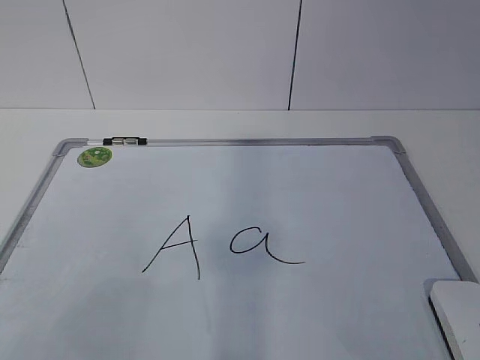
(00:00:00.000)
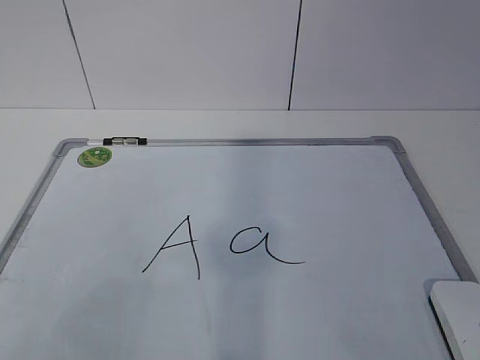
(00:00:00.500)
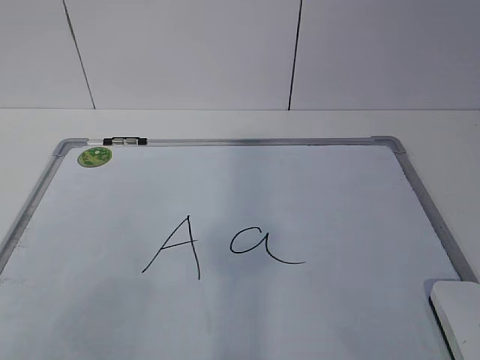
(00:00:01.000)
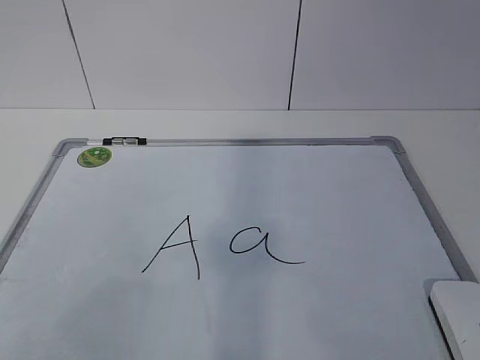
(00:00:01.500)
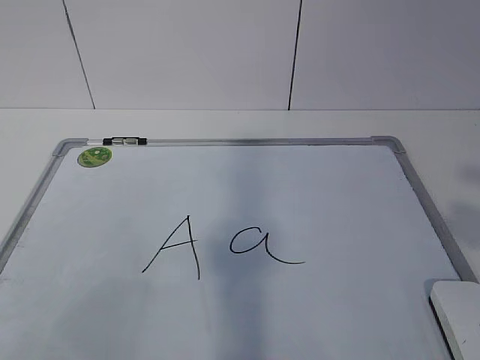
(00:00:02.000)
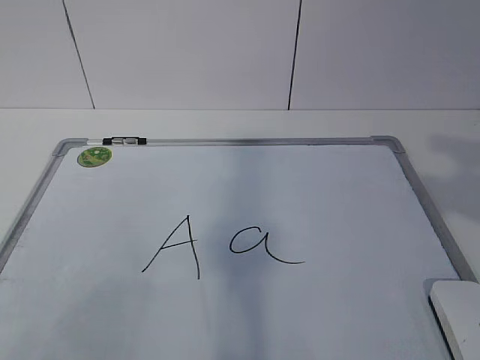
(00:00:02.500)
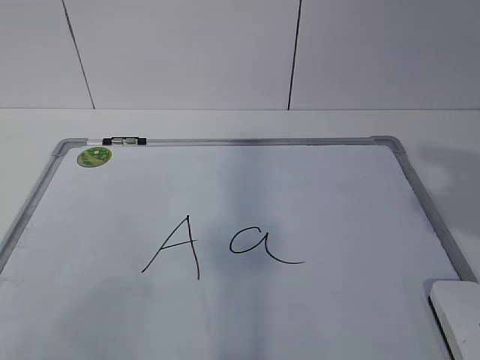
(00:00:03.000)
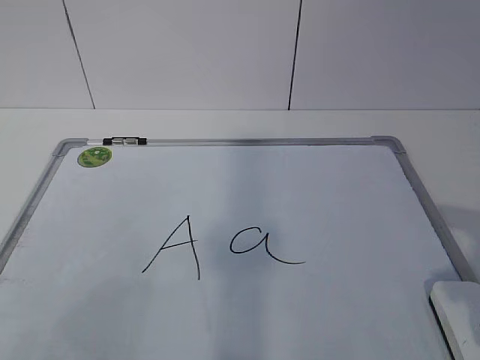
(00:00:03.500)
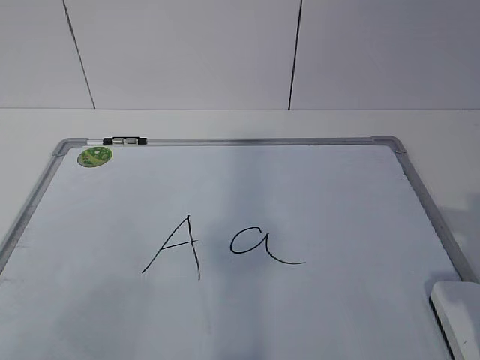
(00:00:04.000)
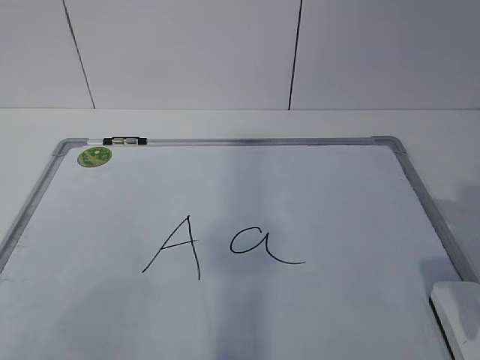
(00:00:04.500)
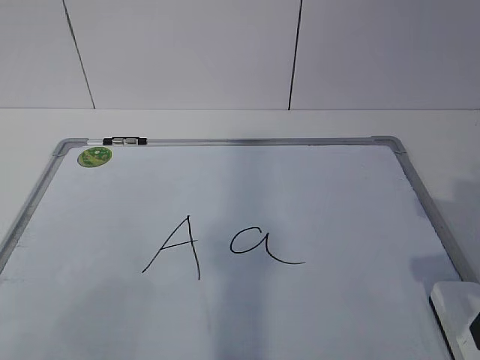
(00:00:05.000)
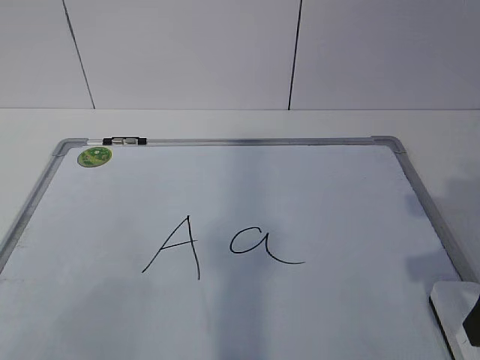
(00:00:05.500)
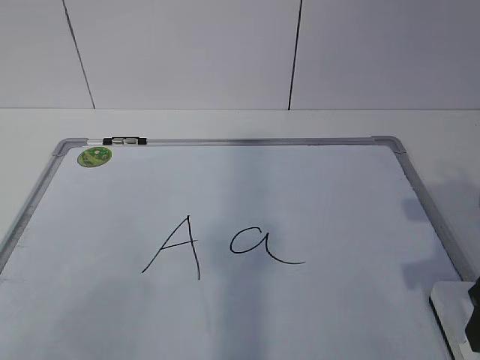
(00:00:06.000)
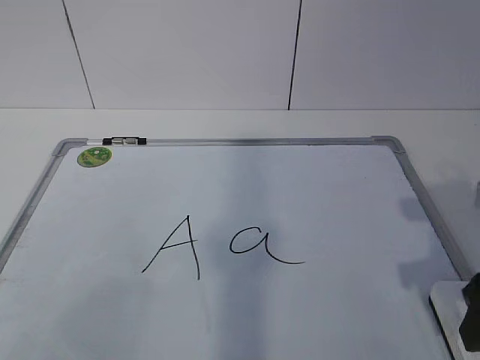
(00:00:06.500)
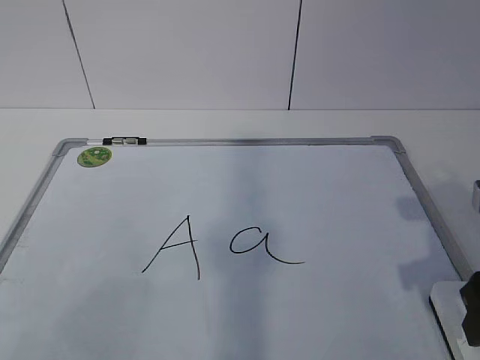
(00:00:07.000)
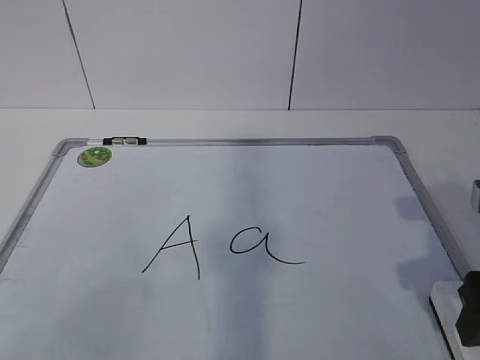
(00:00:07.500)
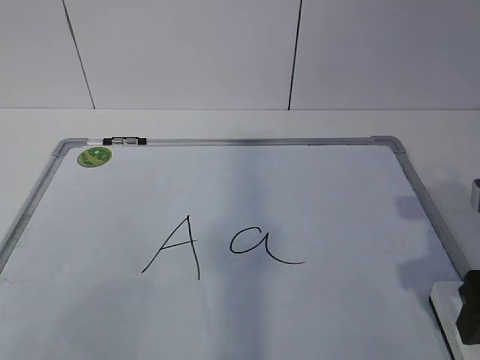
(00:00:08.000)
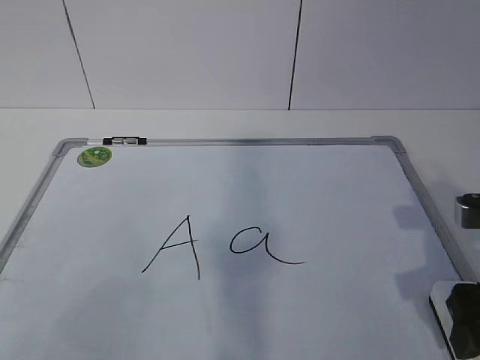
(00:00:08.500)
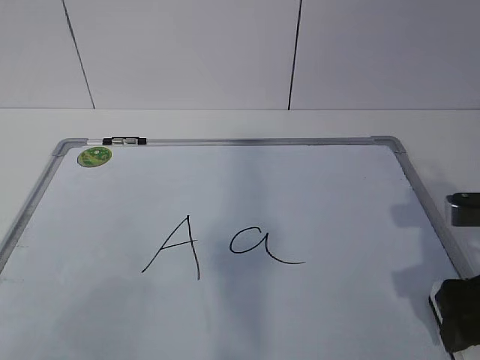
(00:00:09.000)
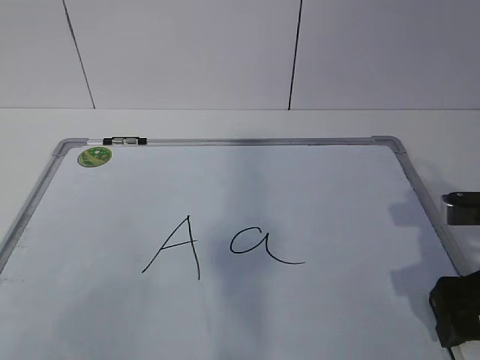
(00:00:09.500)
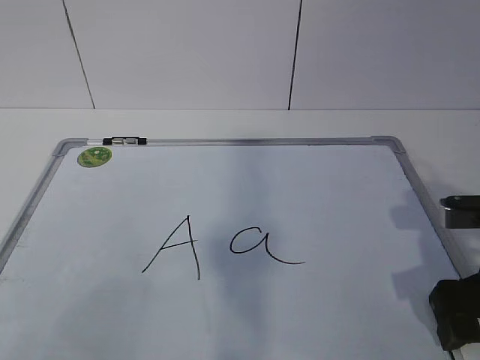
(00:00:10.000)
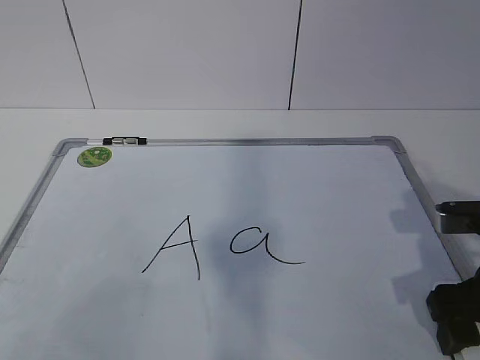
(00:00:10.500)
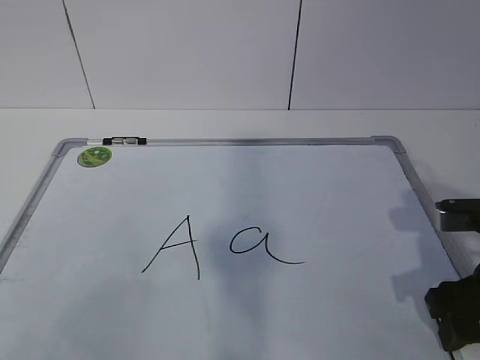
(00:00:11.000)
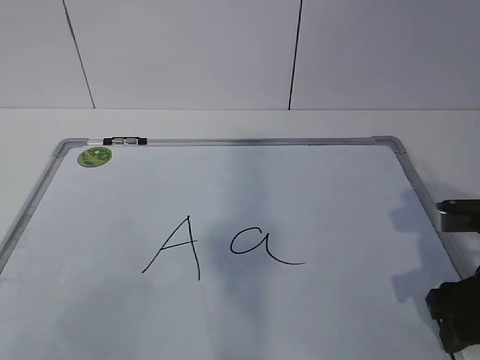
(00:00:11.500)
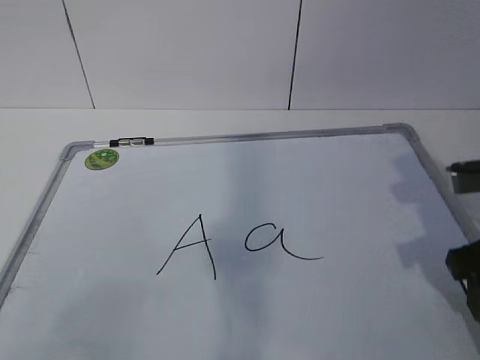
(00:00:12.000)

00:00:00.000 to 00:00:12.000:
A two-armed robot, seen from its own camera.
Task of the whole recording: pick up the eraser on the blackboard and erase the letter "a".
Step, 00:00:00.000 to 00:00:09.500: Grab the eraser with your right hand.
00:00:04.000 to 00:00:06.000: The right gripper ends up roughly 5 cm from where it was.
00:00:06.000 to 00:00:08.000: The right gripper opens its fingers.
00:00:08.000 to 00:00:10.000: The grippers stay close to where they were, moving slightly.
00:00:10.000 to 00:00:12.000: The right gripper goes roughly 5 cm upward, and closes.

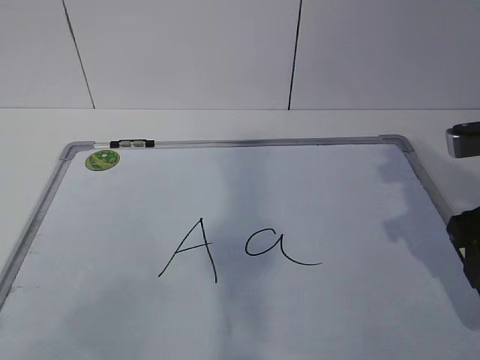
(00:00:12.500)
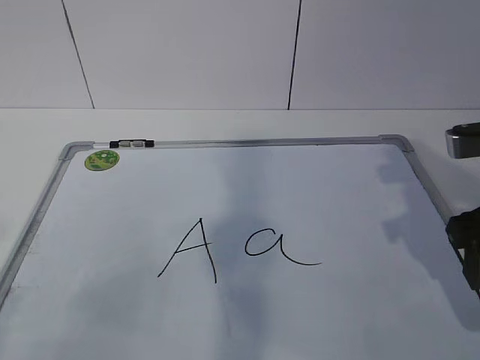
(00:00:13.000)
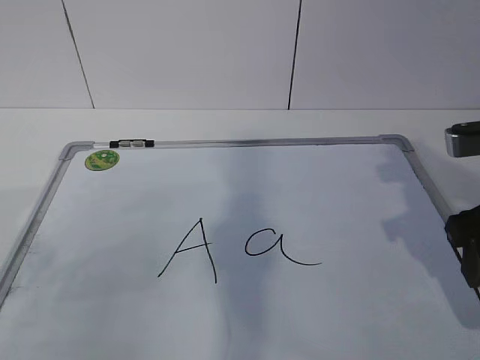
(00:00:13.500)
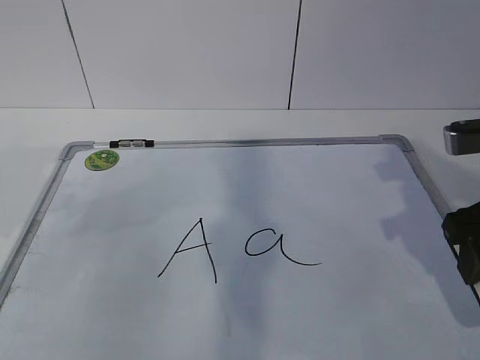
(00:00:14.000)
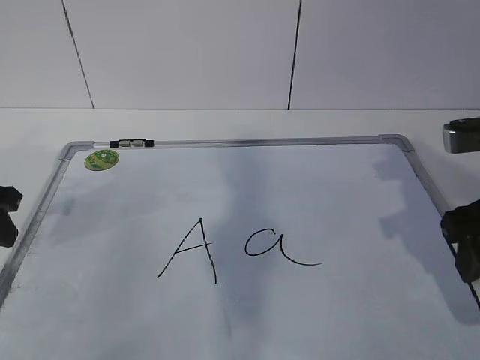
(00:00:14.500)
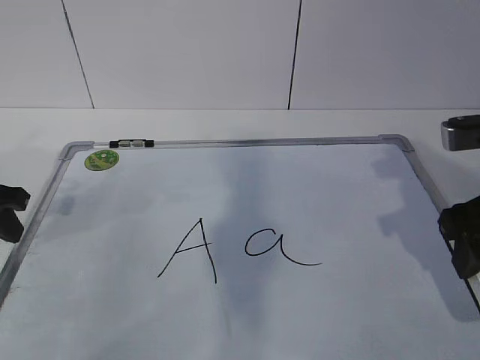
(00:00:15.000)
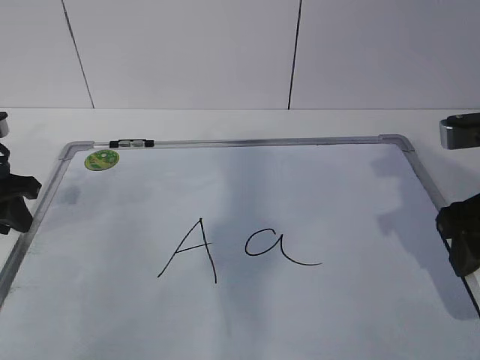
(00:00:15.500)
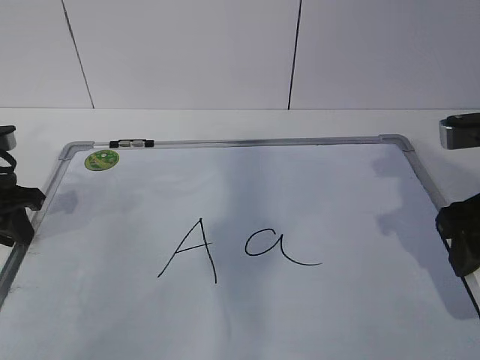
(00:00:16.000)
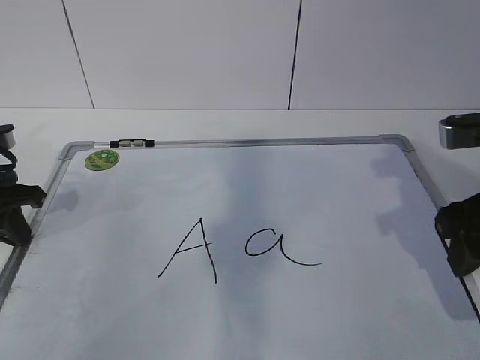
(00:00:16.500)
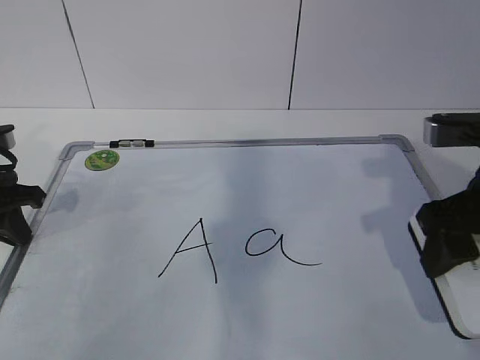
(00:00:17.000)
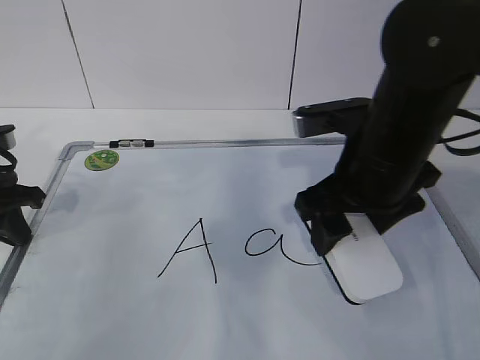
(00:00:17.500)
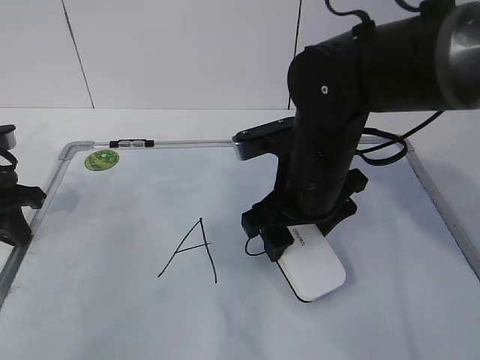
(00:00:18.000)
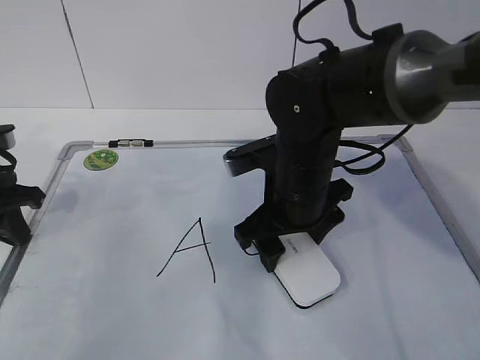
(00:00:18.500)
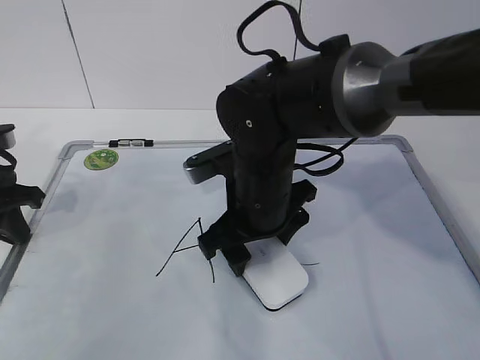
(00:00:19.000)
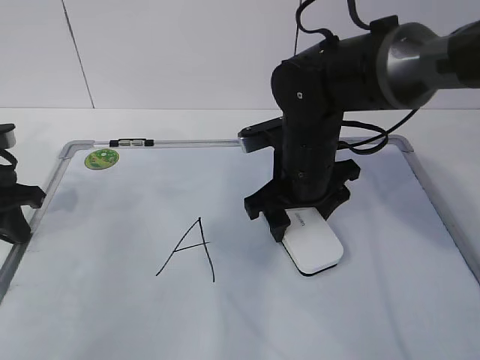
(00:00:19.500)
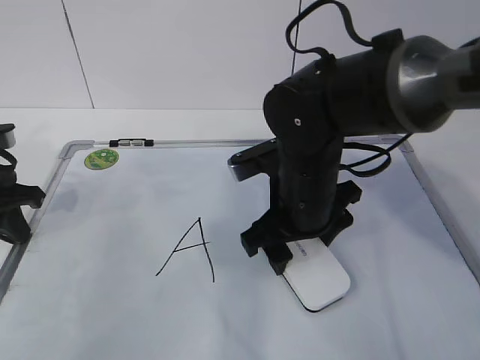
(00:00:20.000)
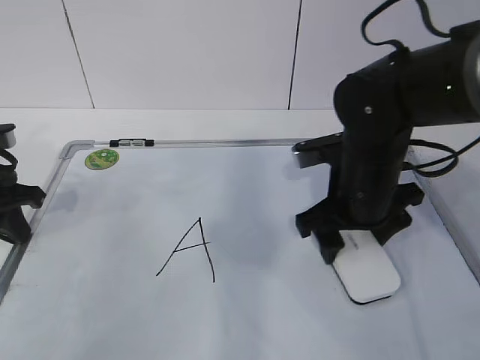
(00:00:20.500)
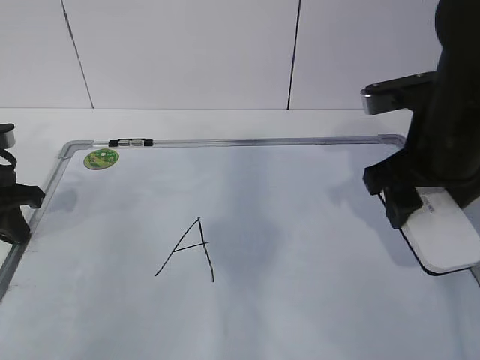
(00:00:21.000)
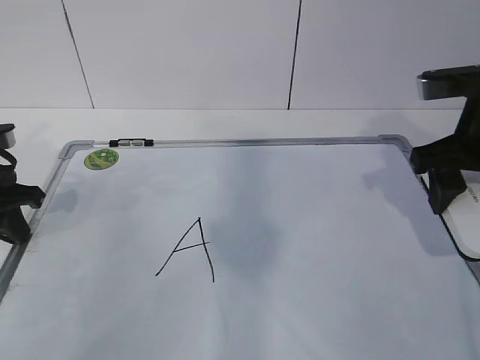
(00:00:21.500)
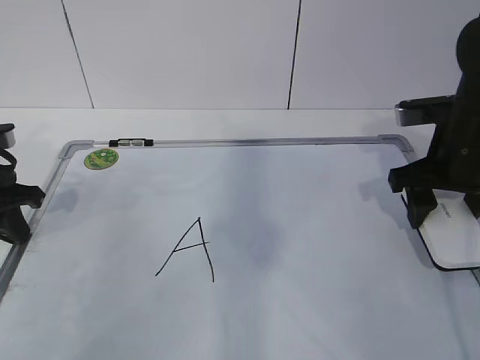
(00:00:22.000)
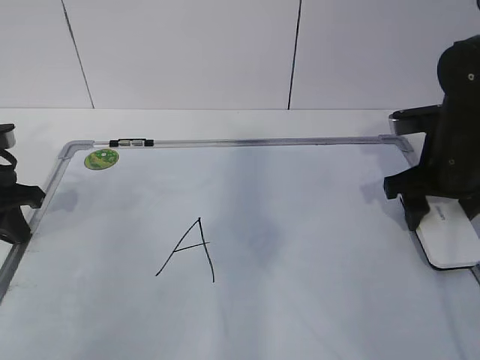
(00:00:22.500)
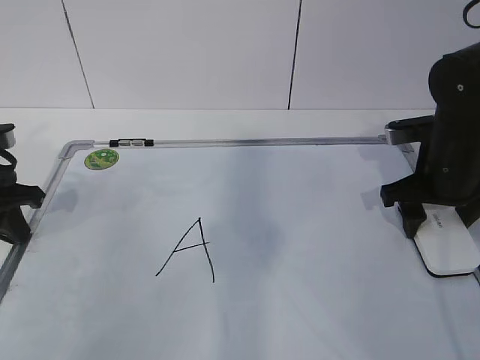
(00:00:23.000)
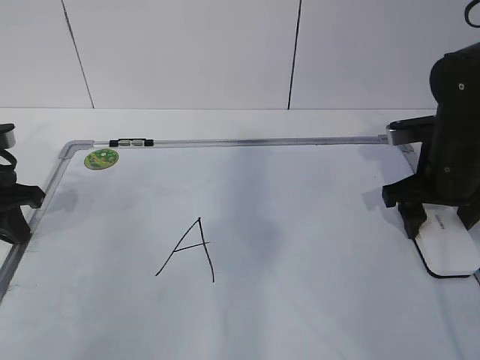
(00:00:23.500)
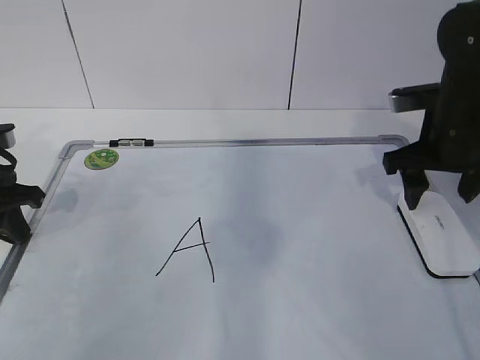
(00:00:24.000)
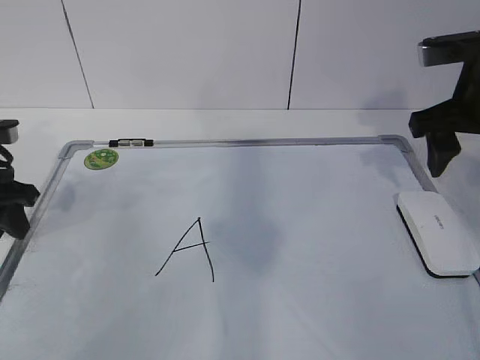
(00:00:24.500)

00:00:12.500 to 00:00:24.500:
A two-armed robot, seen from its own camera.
Task of the whole recording: pick up the eraser on the blackboard and erase the letter "a".
Step, 00:00:17.500 to 00:00:19.500: Put down the eraser with your right hand.
00:00:12.500 to 00:00:14.500: The left gripper moves forward, approximately 30 cm.
00:00:14.500 to 00:00:16.500: The left gripper closes.
00:00:16.500 to 00:00:18.500: The right gripper heads to the left, forward and downward, covering approximately 20 cm.
00:00:18.500 to 00:00:20.500: The right gripper moves to the right, about 10 cm.
00:00:20.500 to 00:00:22.500: The right gripper is displaced to the right by approximately 10 cm.
00:00:22.500 to 00:00:24.500: The left gripper opens, while the right gripper travels upward by approximately 10 cm.

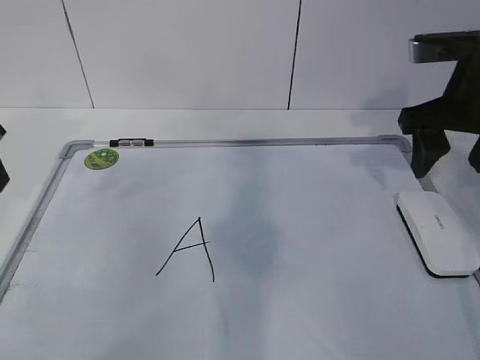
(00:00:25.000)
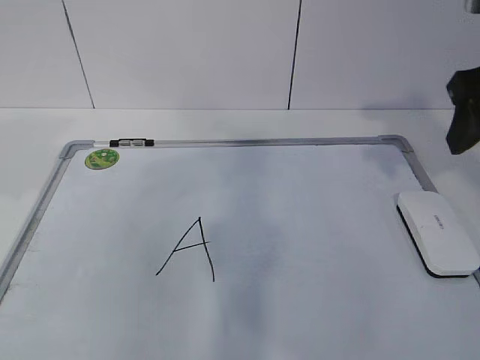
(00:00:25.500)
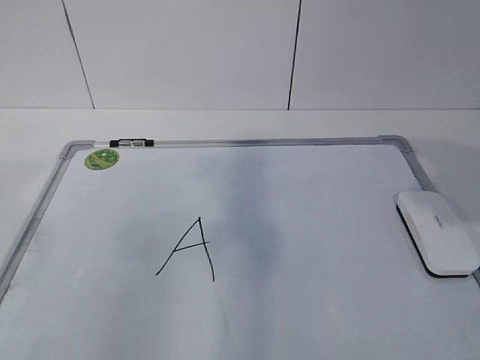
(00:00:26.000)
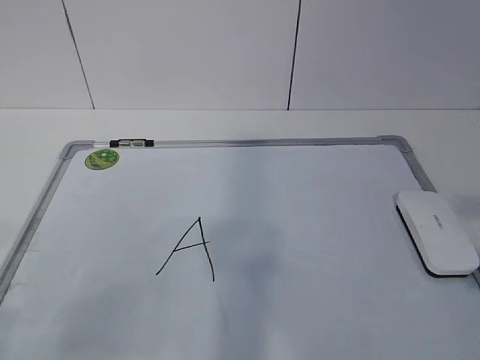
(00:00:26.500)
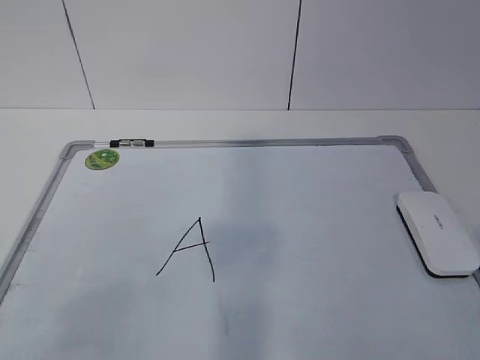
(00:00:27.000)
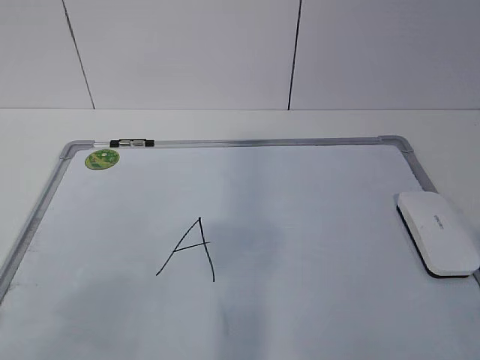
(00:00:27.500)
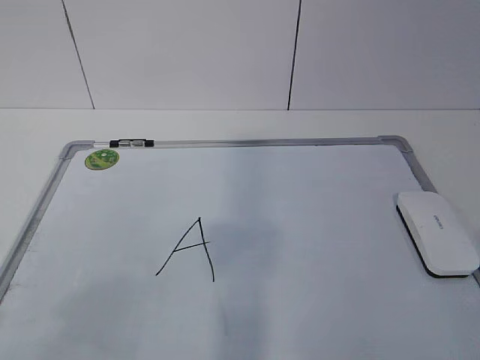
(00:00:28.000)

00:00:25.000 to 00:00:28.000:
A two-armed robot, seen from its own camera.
Task of the whole recording: pick up the eraser on the blackboard and erase the letter "a".
00:00:25.000 to 00:00:26.500: The right gripper goes approximately 25 cm backward.
